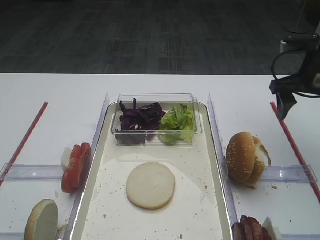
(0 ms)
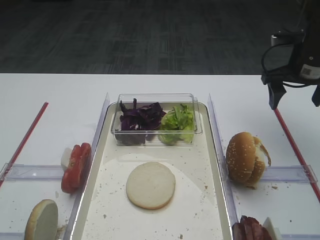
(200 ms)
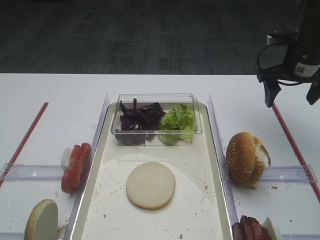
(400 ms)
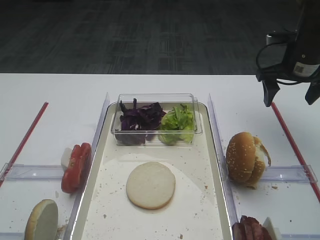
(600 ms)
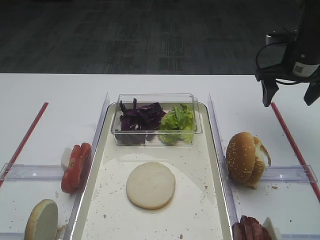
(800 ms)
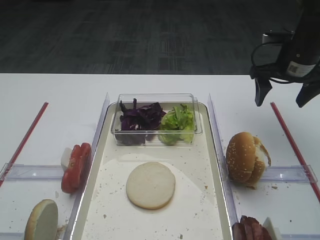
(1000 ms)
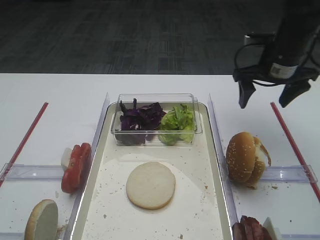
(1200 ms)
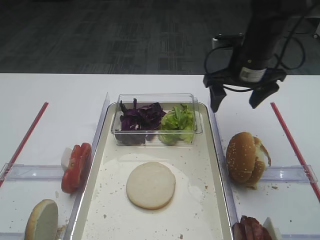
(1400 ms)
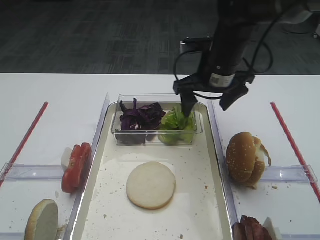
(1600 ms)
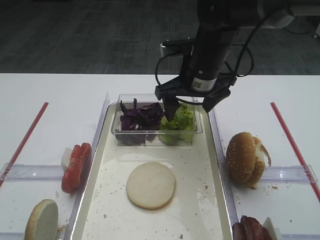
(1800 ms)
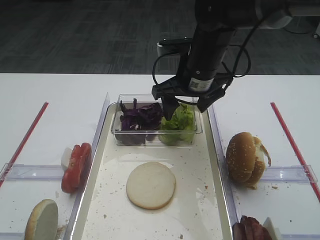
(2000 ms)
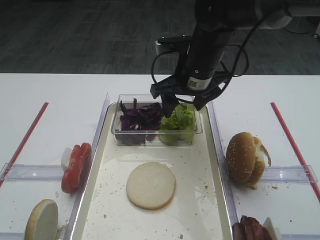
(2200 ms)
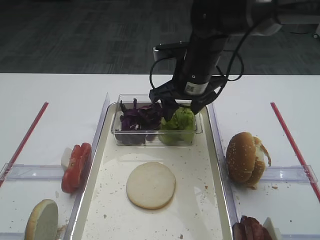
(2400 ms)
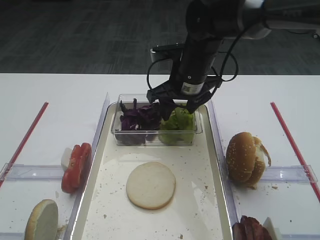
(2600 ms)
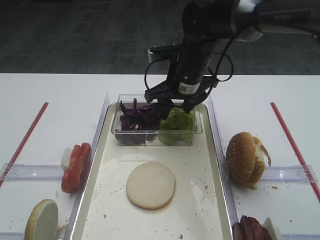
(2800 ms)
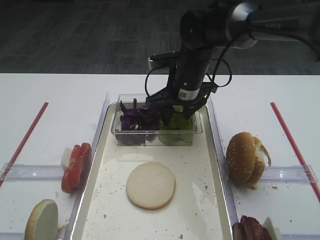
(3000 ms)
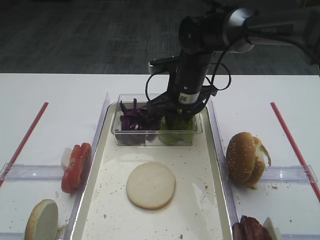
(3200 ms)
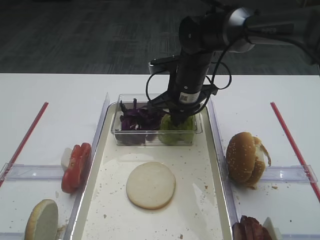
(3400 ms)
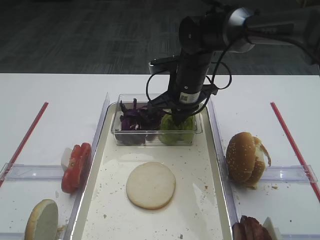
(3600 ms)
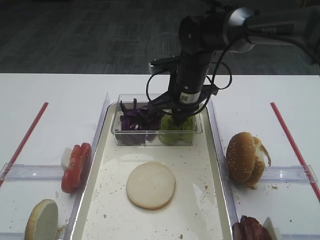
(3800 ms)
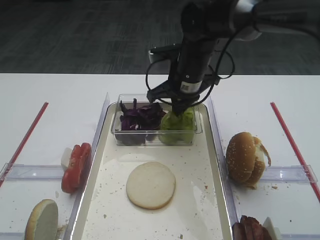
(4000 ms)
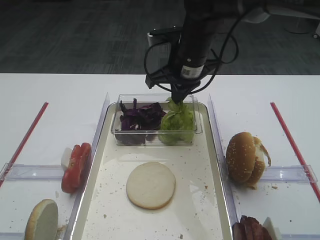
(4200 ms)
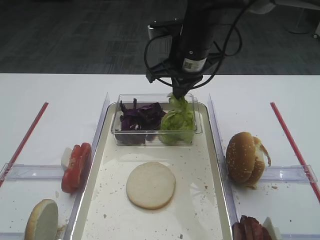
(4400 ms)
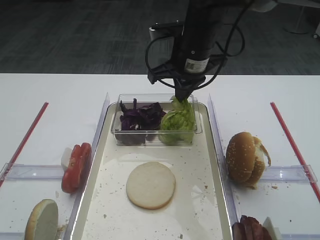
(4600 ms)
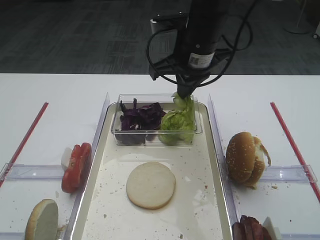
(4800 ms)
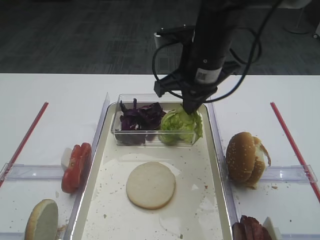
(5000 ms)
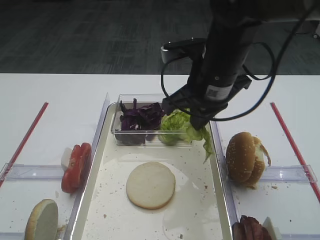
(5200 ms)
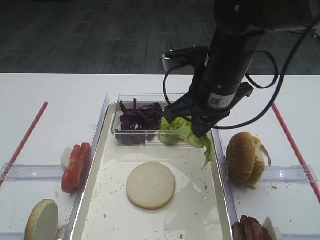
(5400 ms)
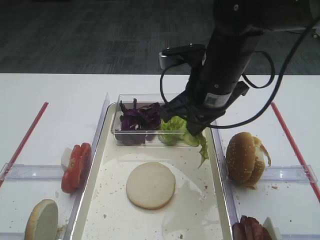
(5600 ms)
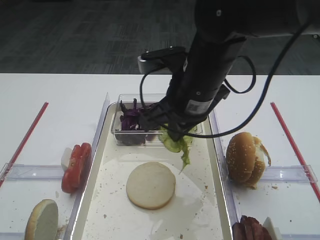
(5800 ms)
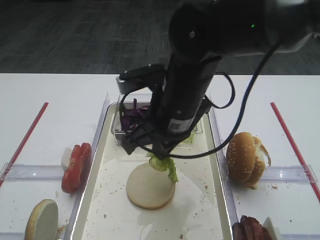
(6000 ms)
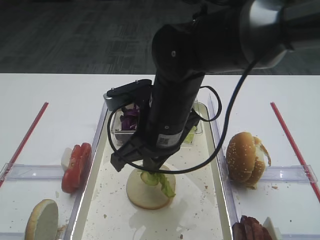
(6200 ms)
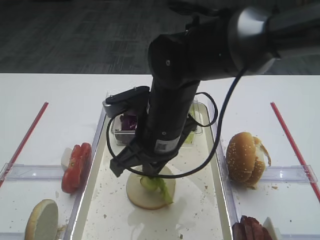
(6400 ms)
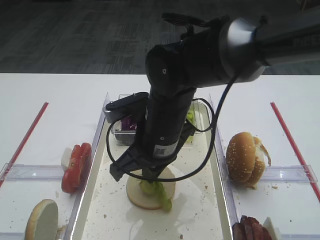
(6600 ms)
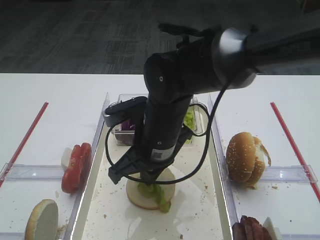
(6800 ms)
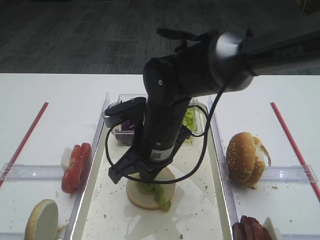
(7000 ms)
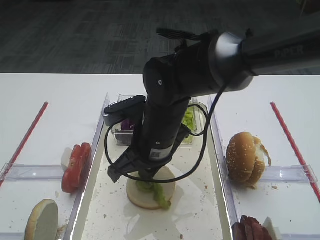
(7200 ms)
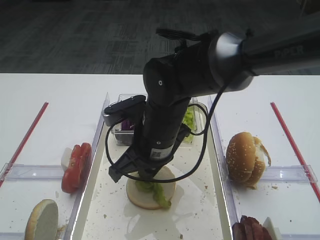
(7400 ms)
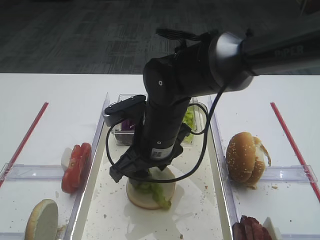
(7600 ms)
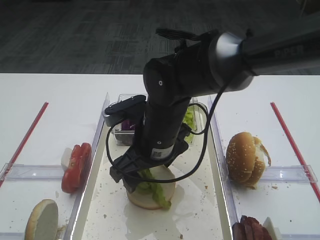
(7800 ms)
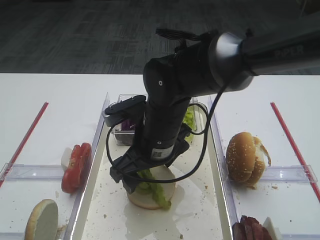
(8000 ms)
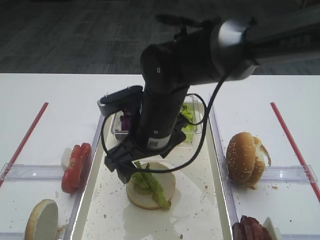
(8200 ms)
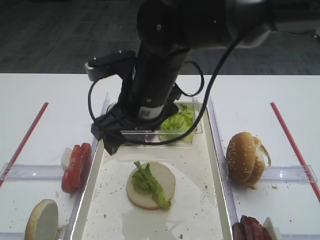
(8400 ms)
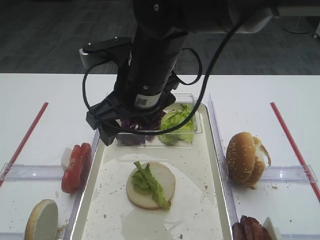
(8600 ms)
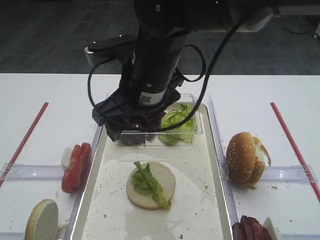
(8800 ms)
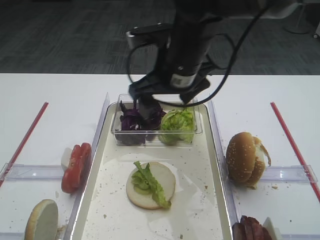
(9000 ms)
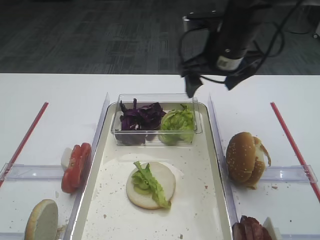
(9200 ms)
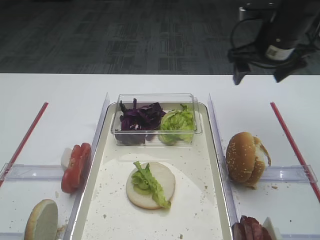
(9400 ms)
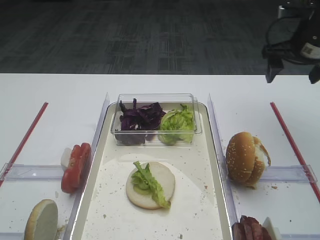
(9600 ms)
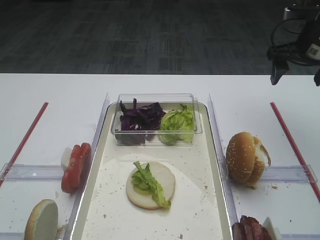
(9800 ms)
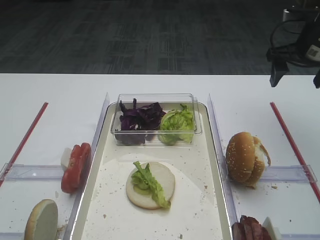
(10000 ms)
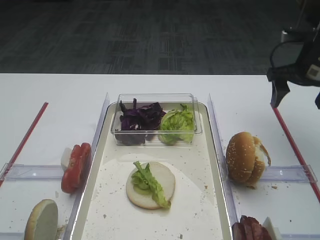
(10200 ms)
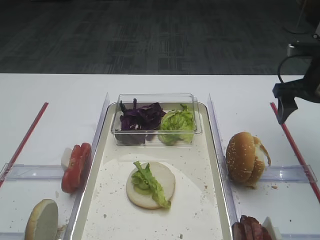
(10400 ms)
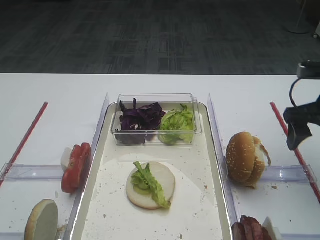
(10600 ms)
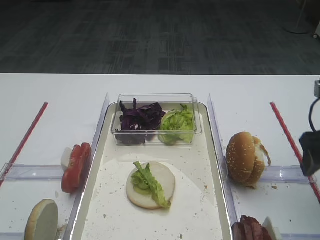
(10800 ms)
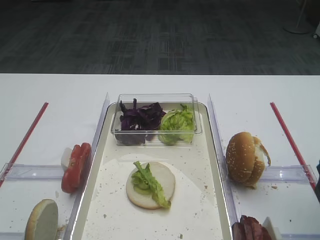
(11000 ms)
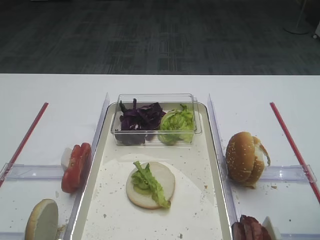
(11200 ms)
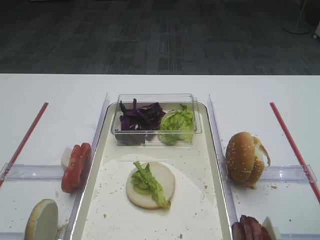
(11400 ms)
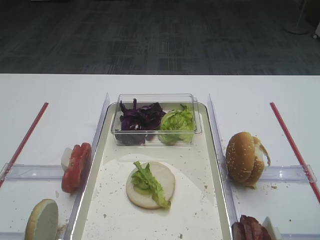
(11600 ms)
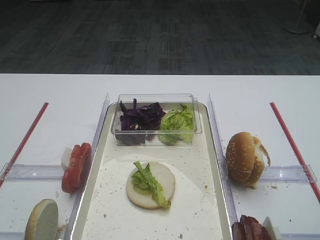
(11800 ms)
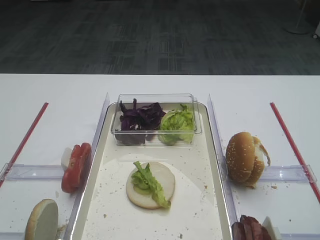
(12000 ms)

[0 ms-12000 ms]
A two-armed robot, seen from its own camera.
Step, 0 ms to 4800 ms: Pick up the lettuce leaf with the right gripper.
Step, 5000 ms to 8400 ms: Place the lettuce leaf on the bread slice with the right gripper.
0 ms to 1600 ms: The right gripper goes roughly 15 cm to the left.
1600 ms to 3000 ms: The right gripper shifts roughly 5 cm to the left.
3000 ms to 4400 ms: The right gripper travels upward by roughly 5 cm, and closes up.
4400 ms to 6000 ms: The right gripper travels backward by about 15 cm.
6000 ms to 7600 ms: The right gripper is displaced downward by about 5 cm, and opens its fingers.
7600 ms to 9000 ms: The right gripper travels upward and forward by roughly 10 cm, and opens its fingers.
9000 ms to 10400 ms: The right gripper travels to the right by about 25 cm.
10400 ms to 12000 ms: The right gripper moves backward, approximately 30 cm.

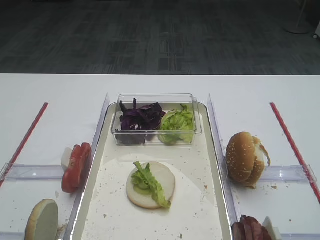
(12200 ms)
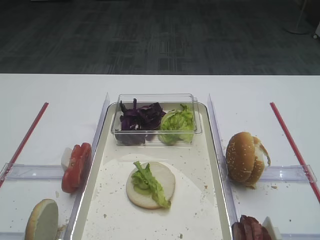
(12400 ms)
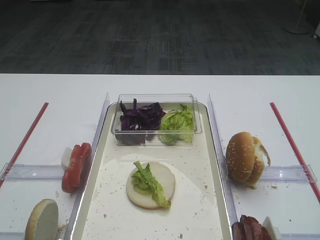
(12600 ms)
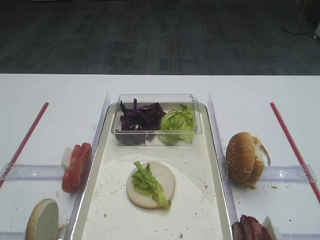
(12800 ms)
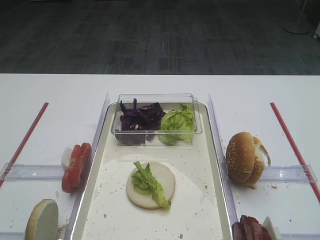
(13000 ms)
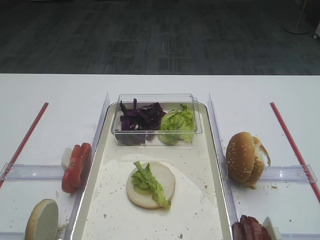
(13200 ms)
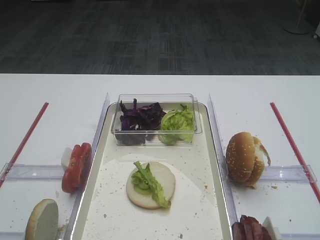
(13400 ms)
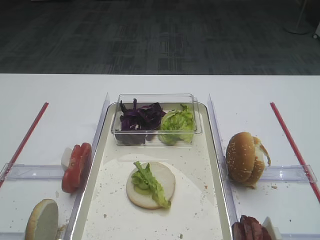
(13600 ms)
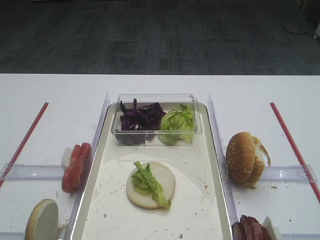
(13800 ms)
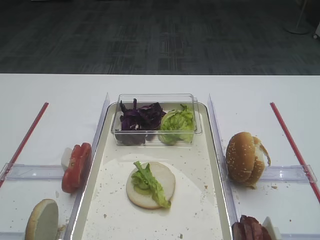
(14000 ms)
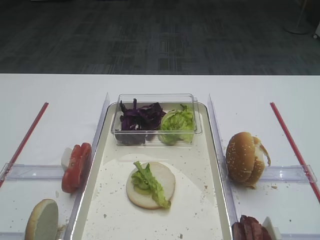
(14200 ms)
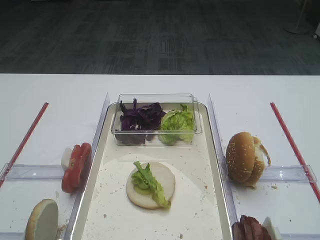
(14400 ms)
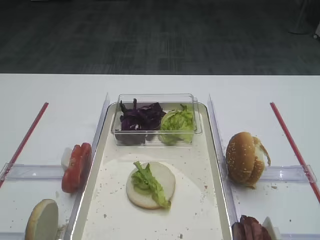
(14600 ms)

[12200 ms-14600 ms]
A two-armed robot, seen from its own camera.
13400 ms to 14600 ms: Both grippers stay about where they are.

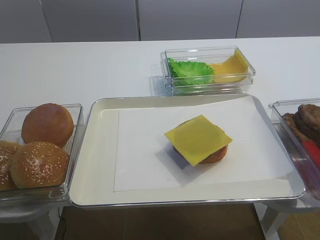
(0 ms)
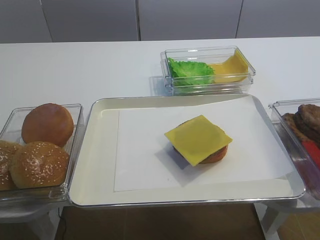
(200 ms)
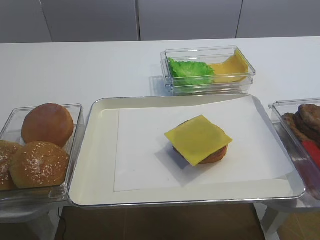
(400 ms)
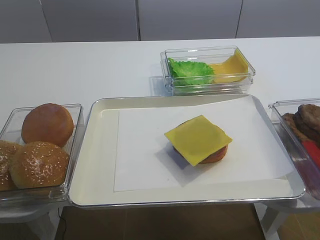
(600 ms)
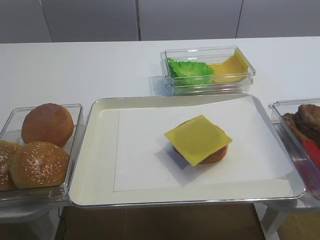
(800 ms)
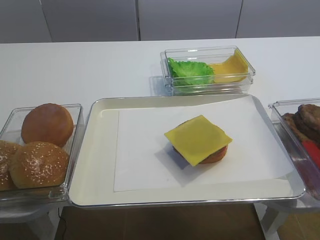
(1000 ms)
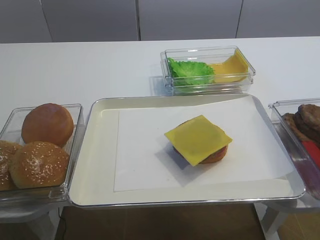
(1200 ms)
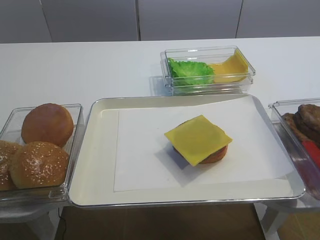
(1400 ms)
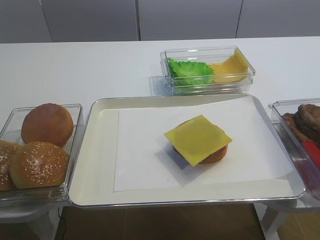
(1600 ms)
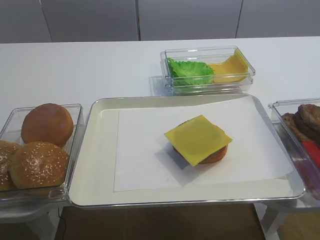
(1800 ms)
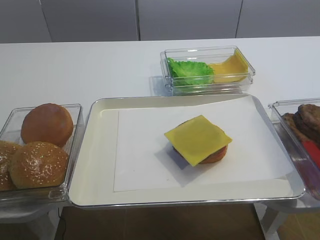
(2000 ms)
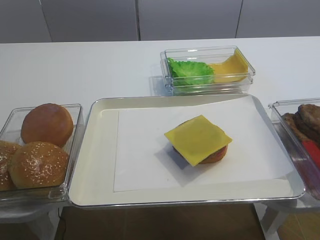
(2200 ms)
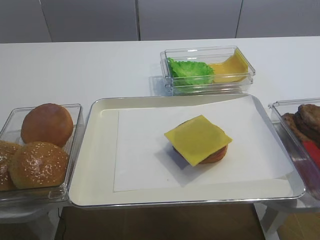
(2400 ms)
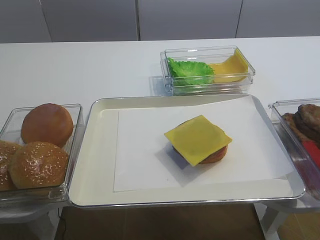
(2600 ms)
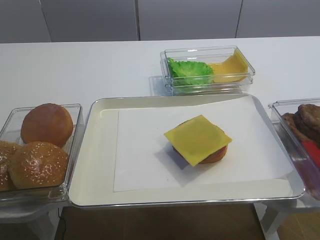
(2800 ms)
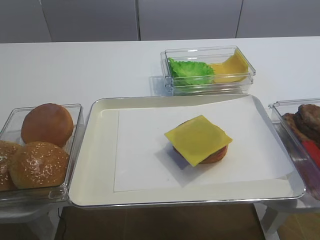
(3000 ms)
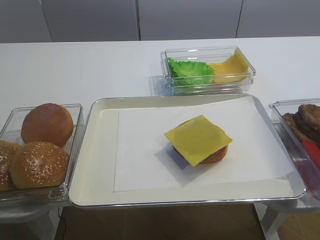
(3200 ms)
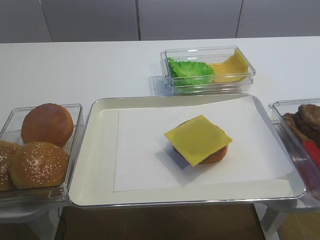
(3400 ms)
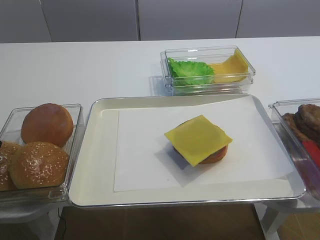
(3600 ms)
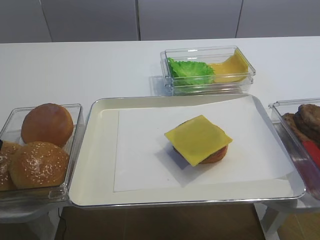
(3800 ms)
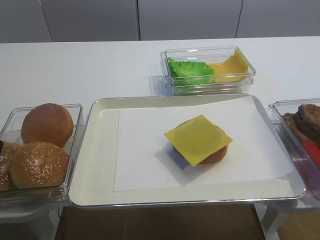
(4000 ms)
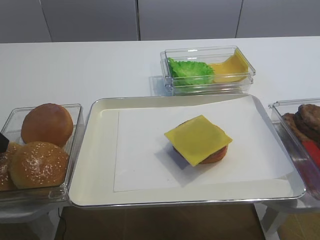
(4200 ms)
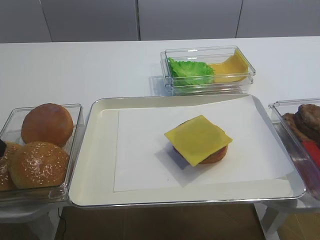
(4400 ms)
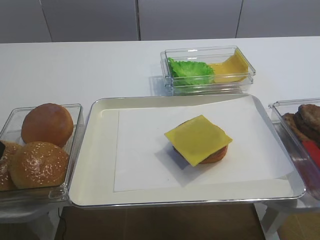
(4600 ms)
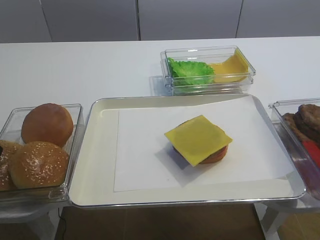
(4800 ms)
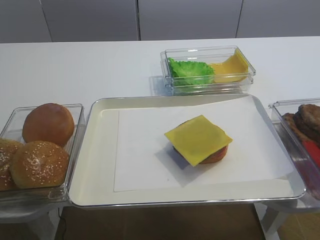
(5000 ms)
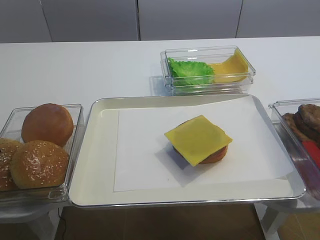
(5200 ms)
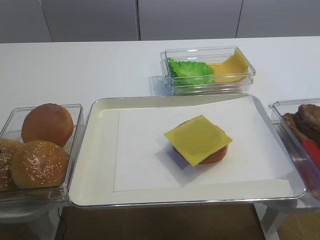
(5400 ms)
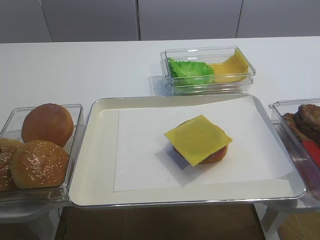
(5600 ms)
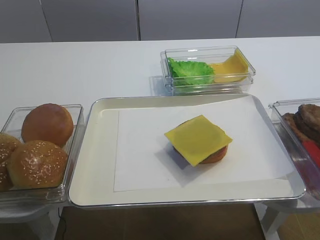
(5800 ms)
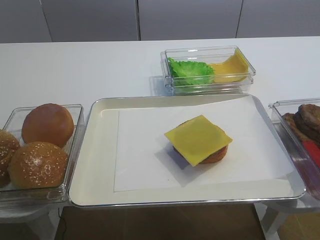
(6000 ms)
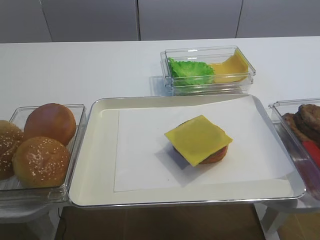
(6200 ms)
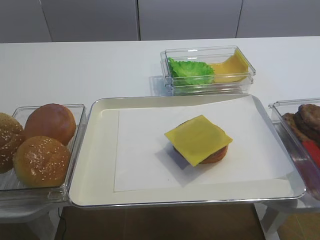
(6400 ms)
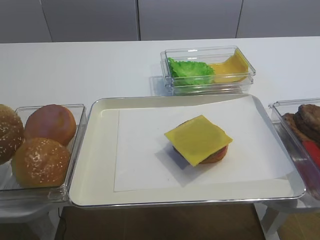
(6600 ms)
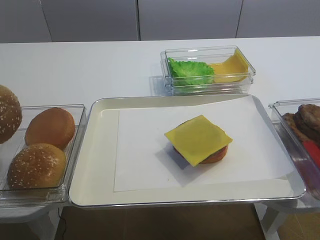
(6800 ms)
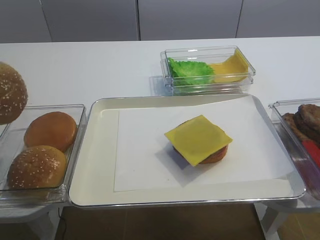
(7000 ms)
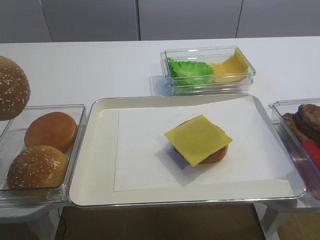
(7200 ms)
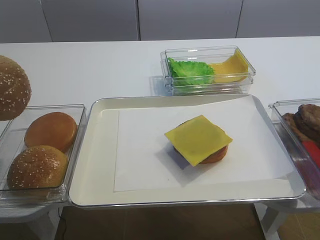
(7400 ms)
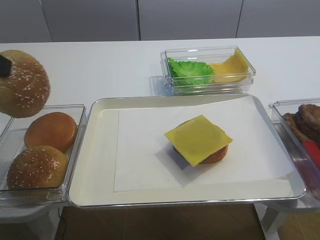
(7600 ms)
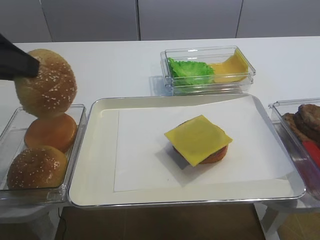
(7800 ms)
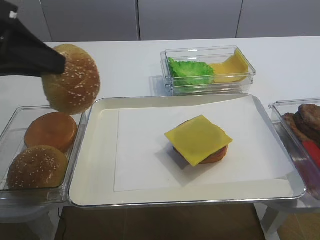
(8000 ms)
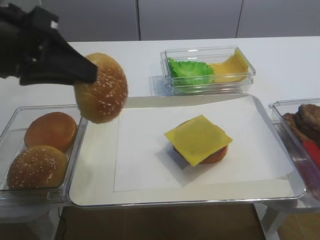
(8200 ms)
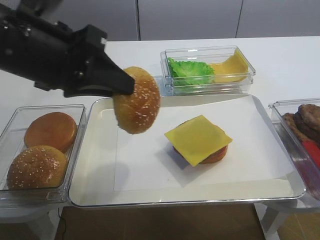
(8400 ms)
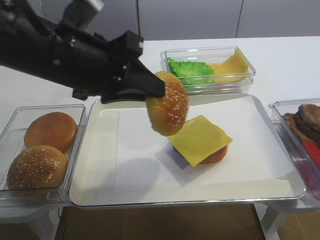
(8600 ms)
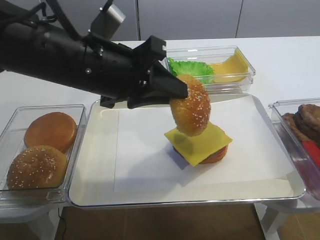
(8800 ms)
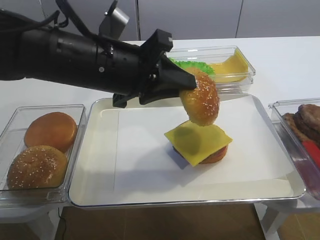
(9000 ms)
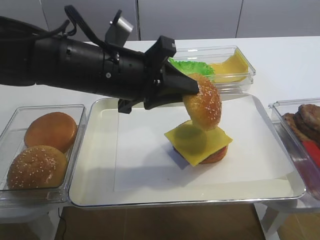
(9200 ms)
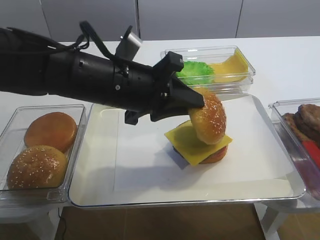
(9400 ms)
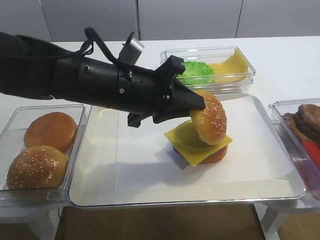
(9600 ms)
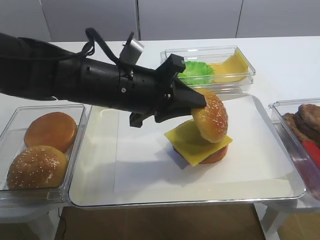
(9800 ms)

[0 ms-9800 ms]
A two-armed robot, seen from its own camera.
Step, 0 ms to 7000 ms: Pick up the hamburger lid with the left gripper.
5600 ms to 7000 ms: The left gripper shifts about 10 cm upward.
7000 ms to 8400 ms: The left gripper travels to the right by some 15 cm.
8400 ms to 9800 ms: The left gripper goes some 15 cm to the right and downward.
